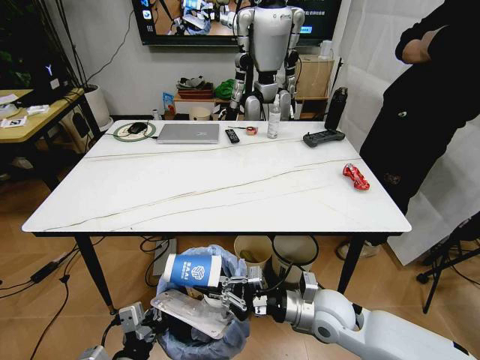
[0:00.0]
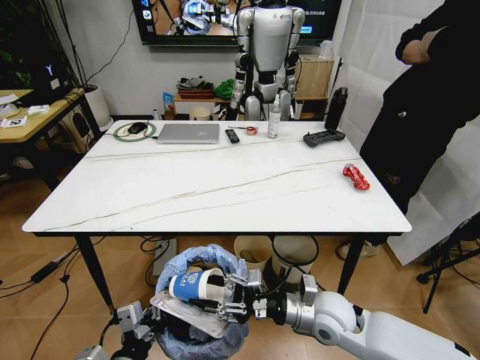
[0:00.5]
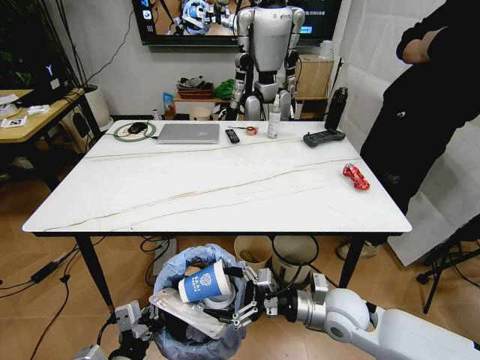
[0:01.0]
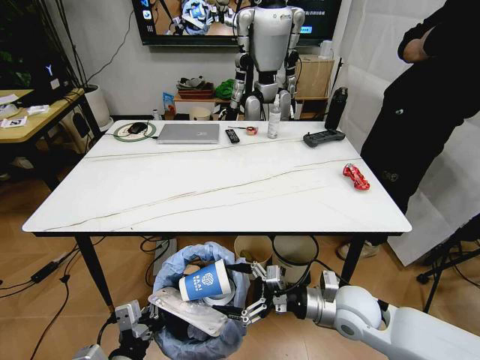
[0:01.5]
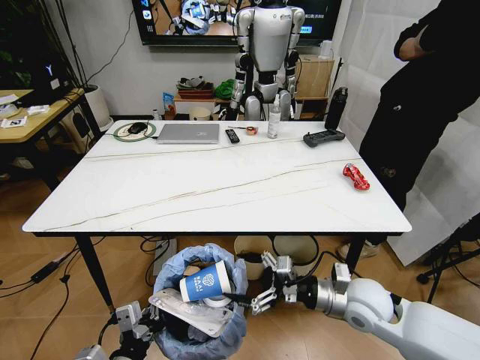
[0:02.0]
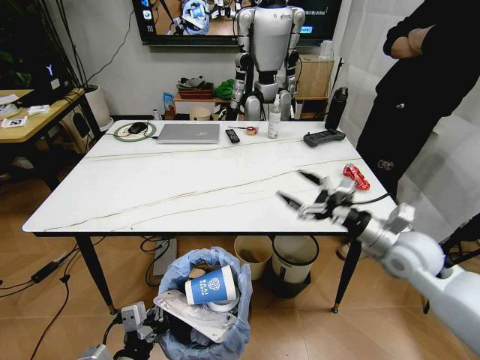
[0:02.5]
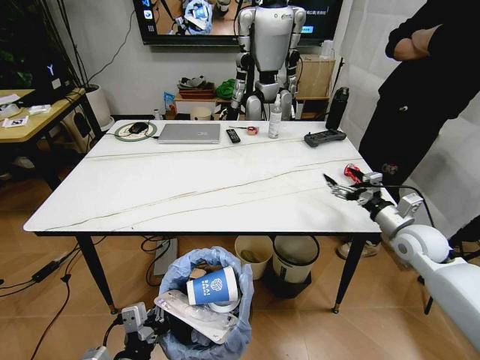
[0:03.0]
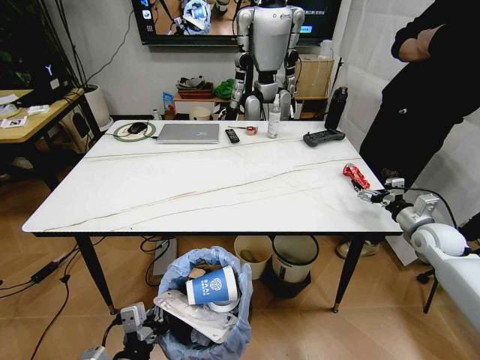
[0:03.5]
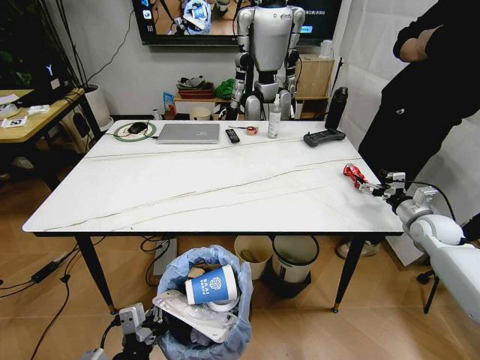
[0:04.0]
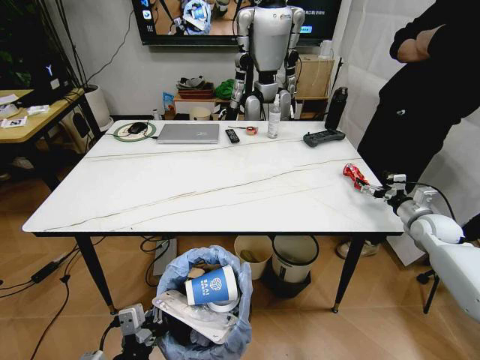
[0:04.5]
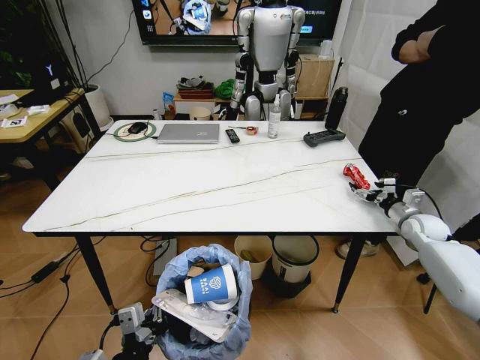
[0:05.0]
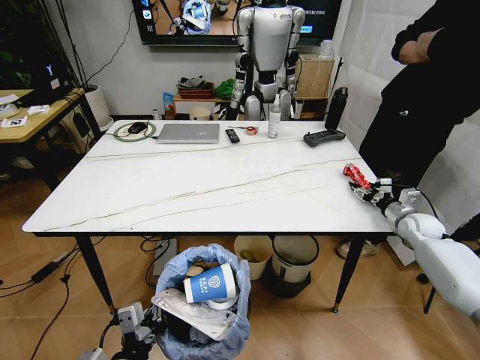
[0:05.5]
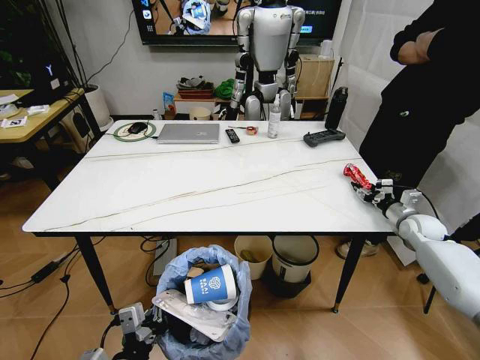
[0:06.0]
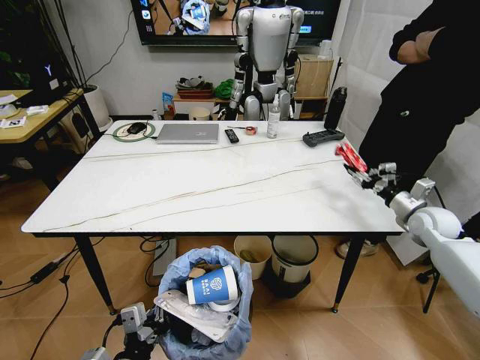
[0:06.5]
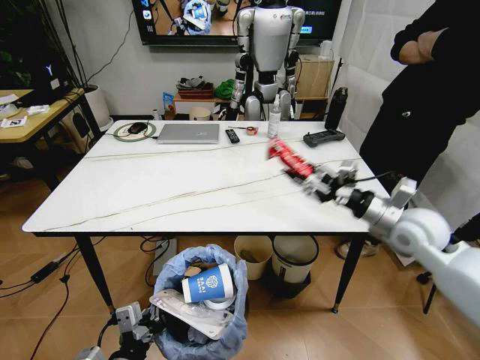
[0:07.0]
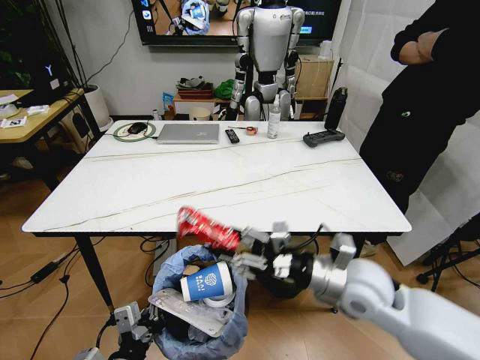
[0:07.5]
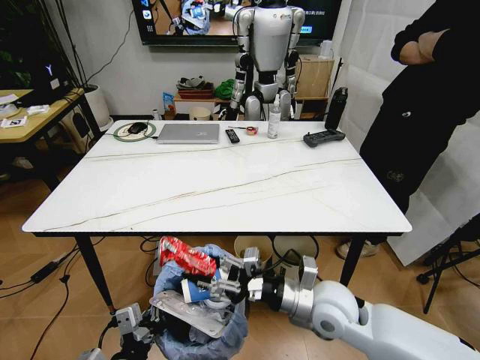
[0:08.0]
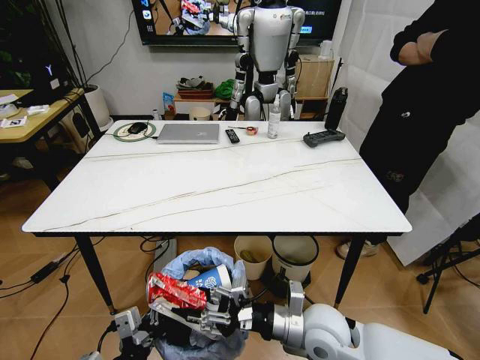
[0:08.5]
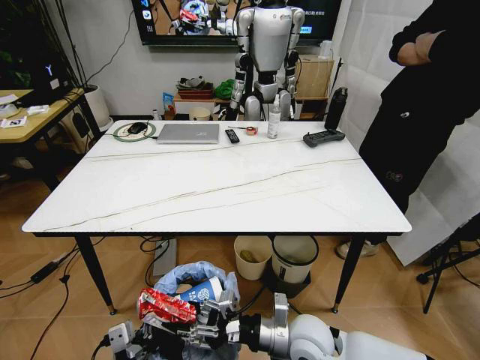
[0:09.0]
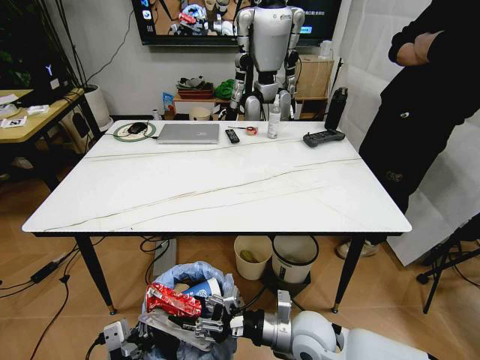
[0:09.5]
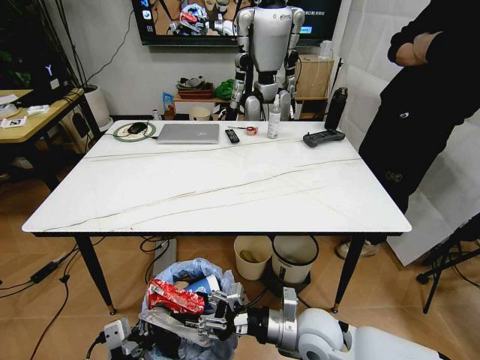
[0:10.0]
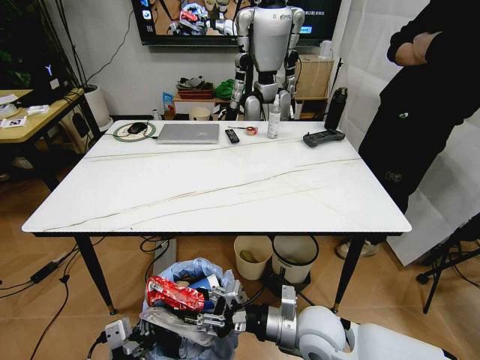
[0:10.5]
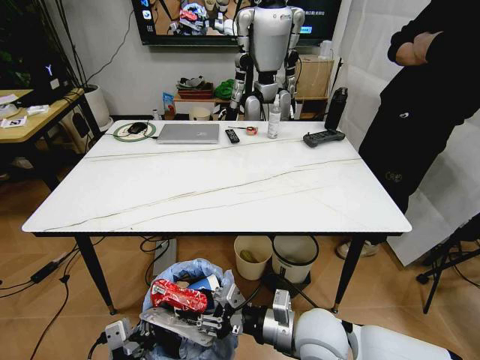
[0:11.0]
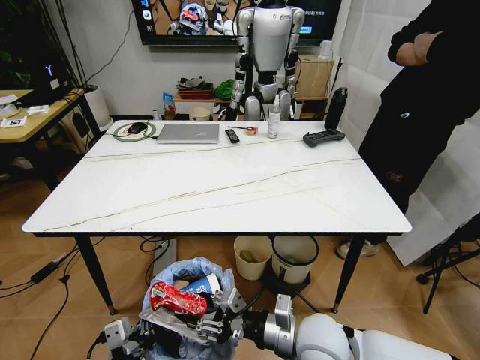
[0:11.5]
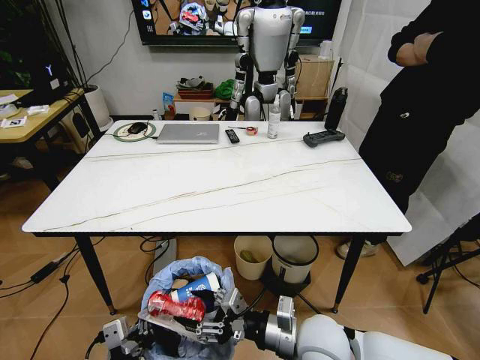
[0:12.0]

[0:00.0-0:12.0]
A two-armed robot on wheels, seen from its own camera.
Task of the whole recording: Pick up the trash bin and place the trash from the table into it.
0:00.0 to 0:02.0: The right gripper moves to the right, roughly 5 cm, and opens up.
0:02.0 to 0:04.0: The right gripper heads to the right and forward, covering approximately 30 cm.
0:04.0 to 0:06.0: The right gripper closes.
0:06.0 to 0:08.0: The right gripper heads to the left and backward, covering approximately 40 cm.
0:08.0 to 0:10.0: The right gripper moves downward, approximately 5 cm.
0:10.0 to 0:12.0: There are only small adjustments of the grippers.

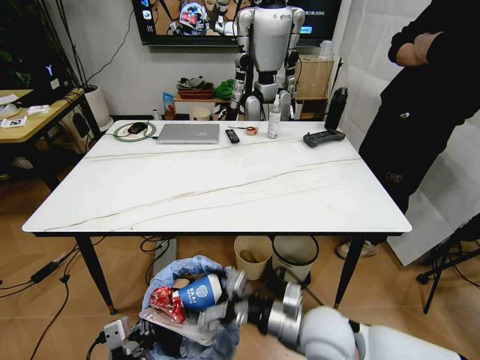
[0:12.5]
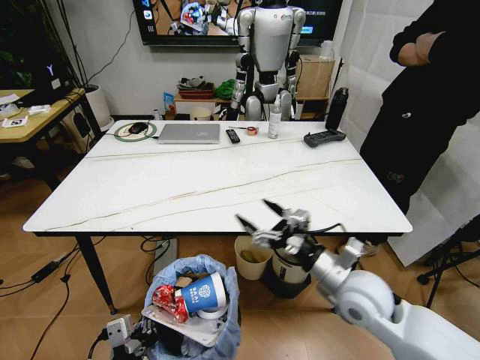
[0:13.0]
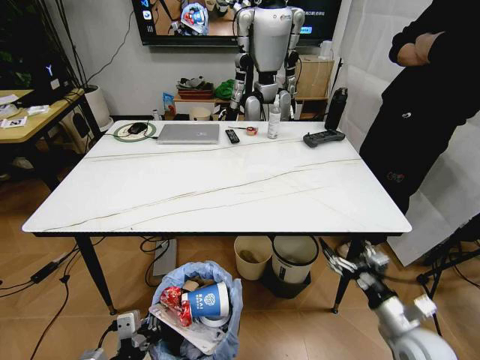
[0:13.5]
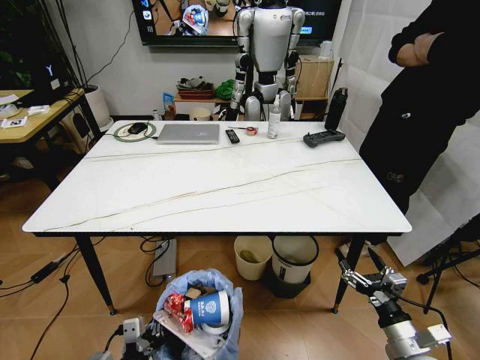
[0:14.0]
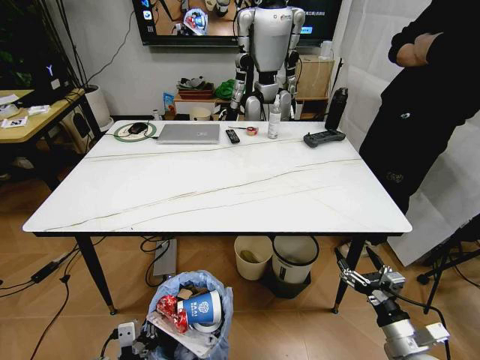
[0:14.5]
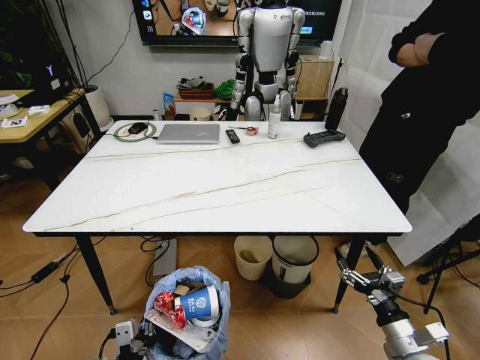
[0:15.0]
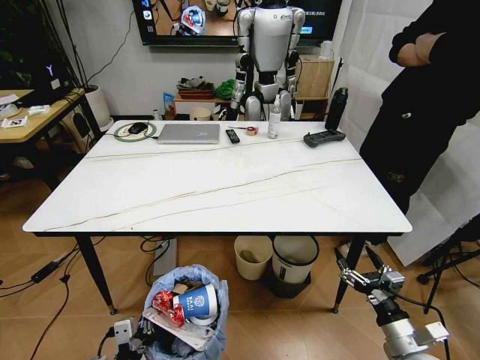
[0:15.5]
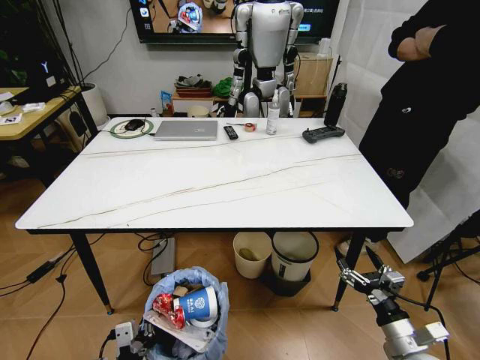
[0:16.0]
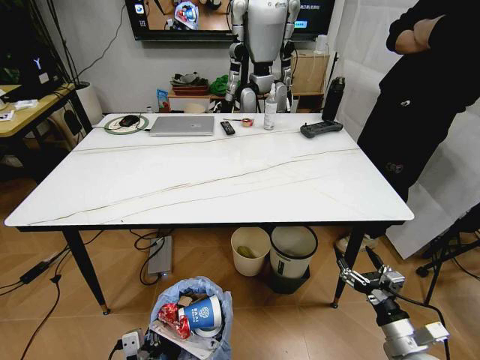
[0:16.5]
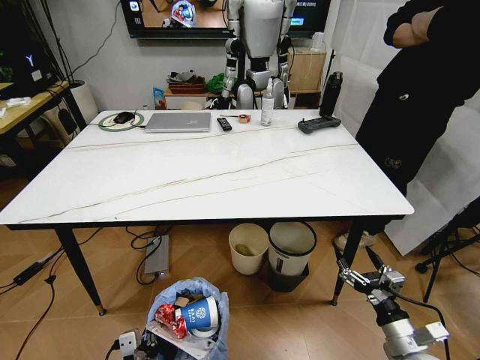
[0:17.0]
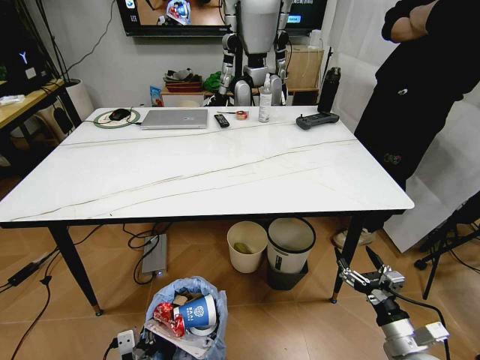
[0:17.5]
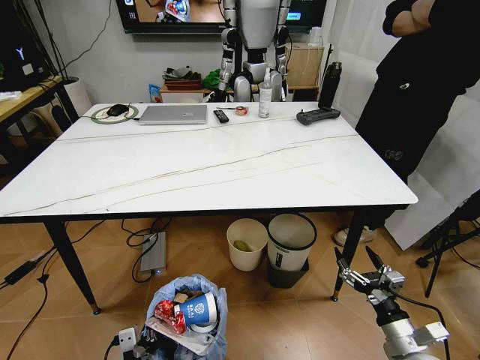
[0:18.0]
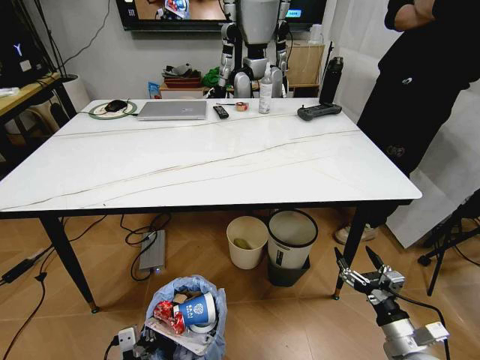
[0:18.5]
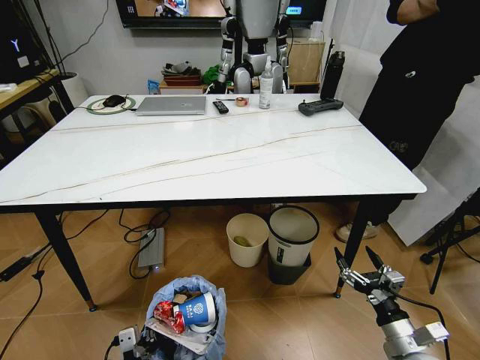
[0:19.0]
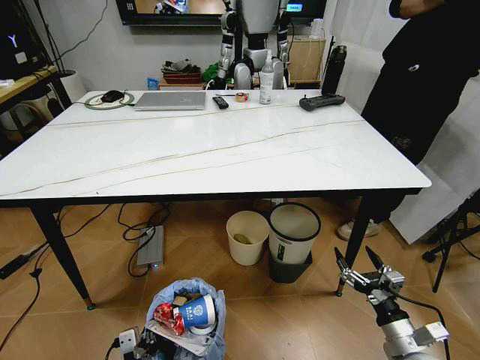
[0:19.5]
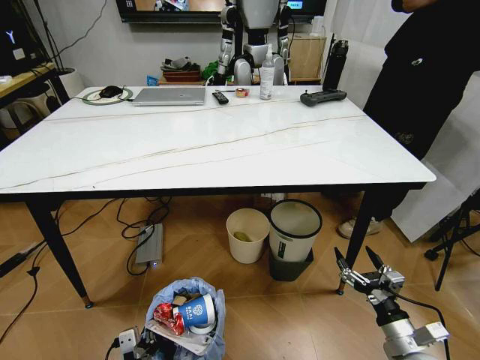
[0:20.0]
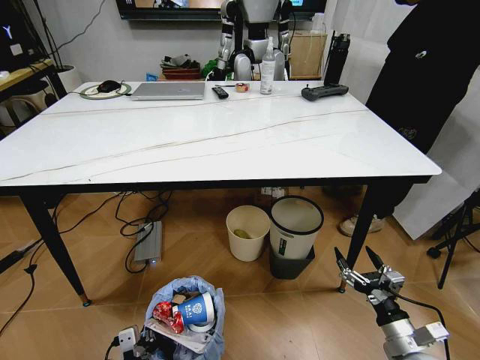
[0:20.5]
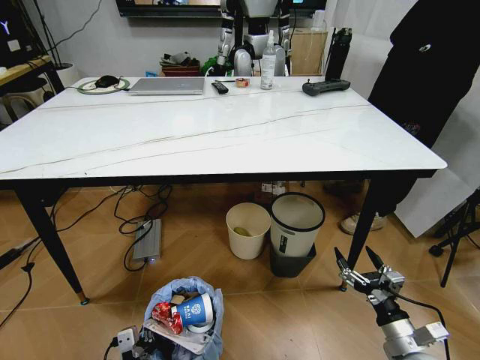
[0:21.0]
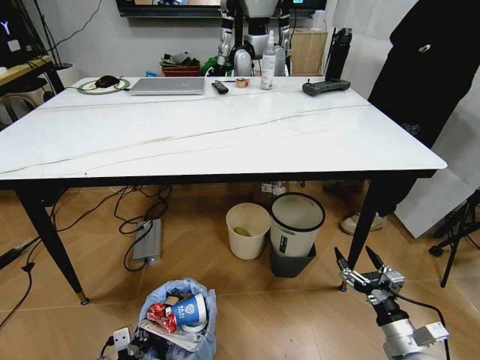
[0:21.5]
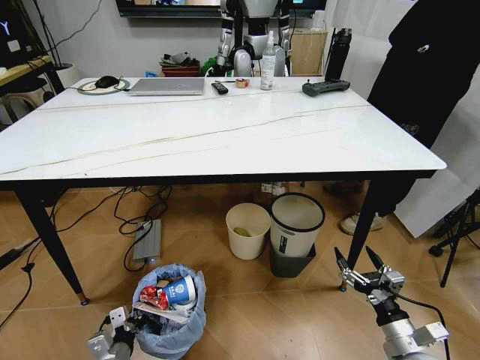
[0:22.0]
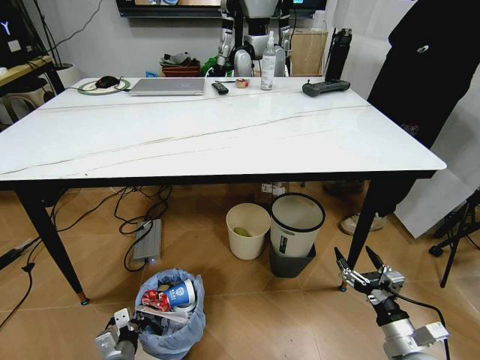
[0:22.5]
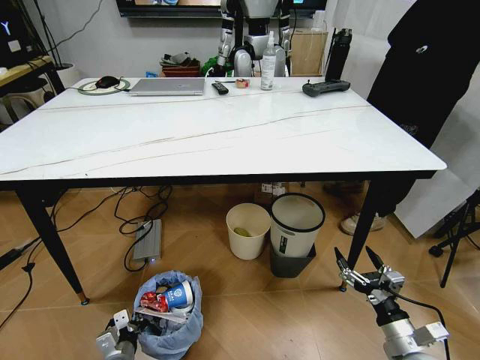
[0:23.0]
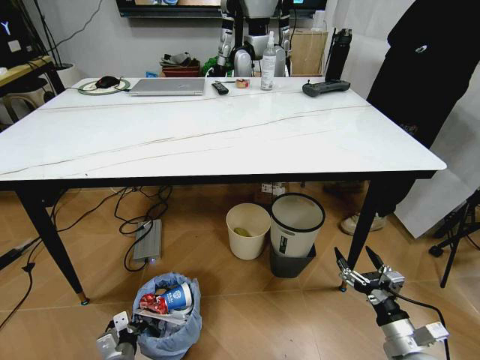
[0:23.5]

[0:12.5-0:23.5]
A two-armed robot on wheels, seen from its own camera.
Task of the whole recording: Pick up the trash bin and place the trash from the table into it.
0:12.5 to 0:14.5: The right gripper heads to the right and downward, covering some 25 cm. Meanwhile the left gripper shifts roughly 10 cm downward.
0:21.5 to 0:23.5: The left gripper goes about 10 cm downward and forward.

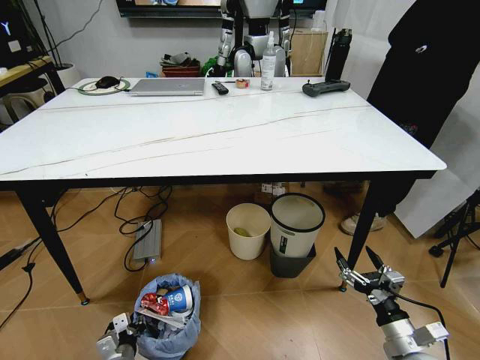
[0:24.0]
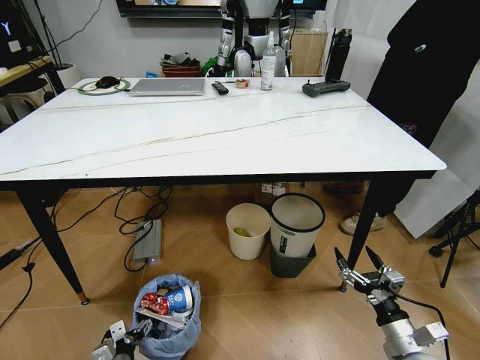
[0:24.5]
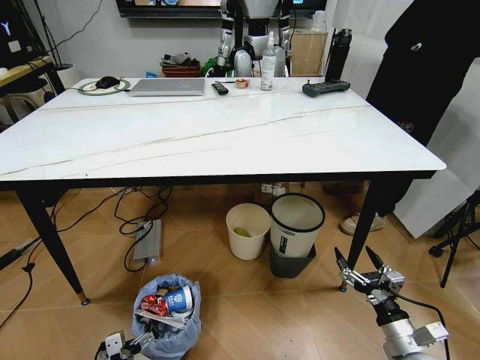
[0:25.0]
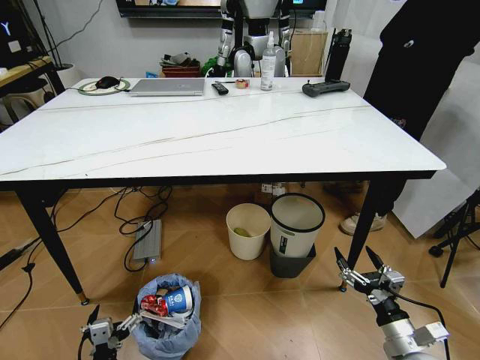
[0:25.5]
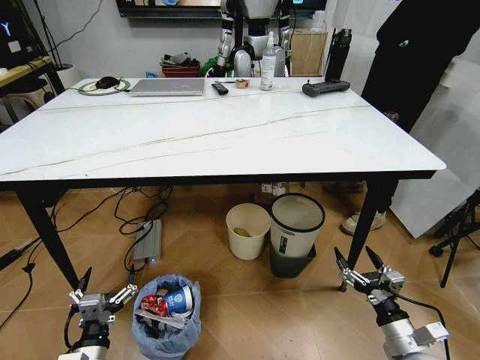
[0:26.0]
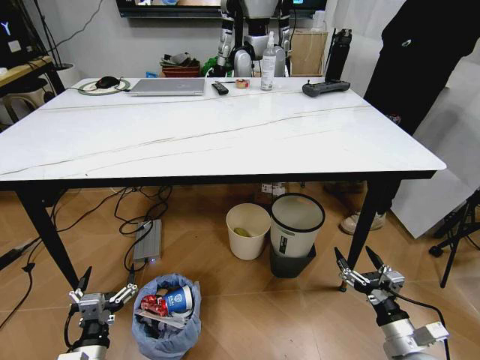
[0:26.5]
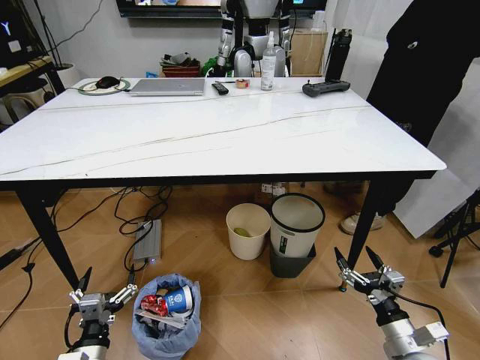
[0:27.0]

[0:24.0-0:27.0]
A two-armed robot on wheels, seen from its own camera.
Task of the whole recording: Pick up the trash bin and place the trash from the table into it.
0:24.0 to 0:25.5: The left gripper goes about 10 cm upward and backward, and opens its fingers.
0:25.5 to 0:27.0: The left gripper is displaced upward by some 5 cm.
